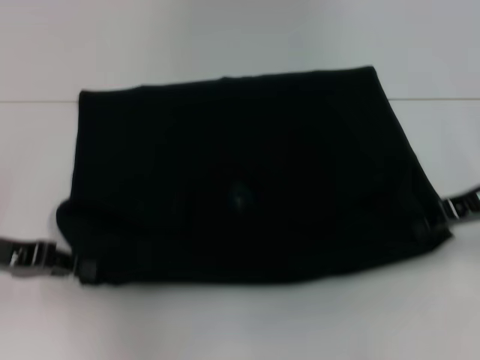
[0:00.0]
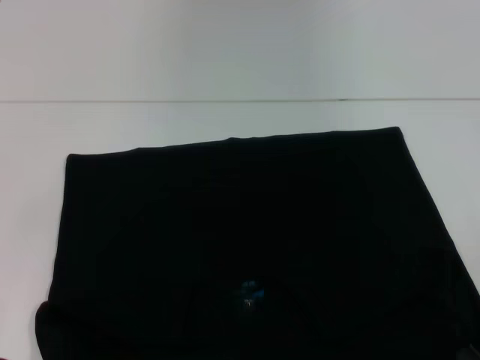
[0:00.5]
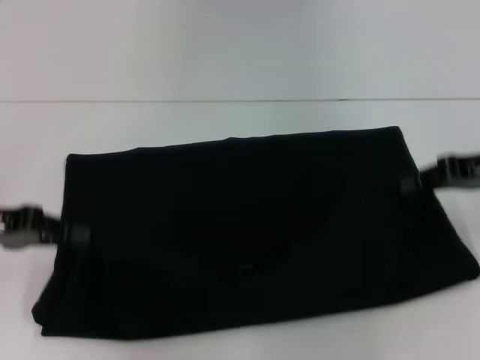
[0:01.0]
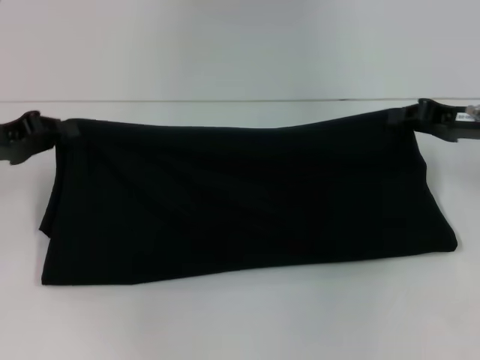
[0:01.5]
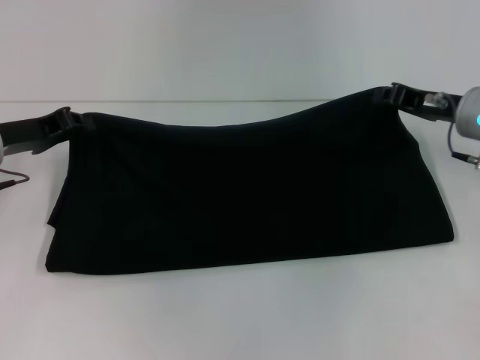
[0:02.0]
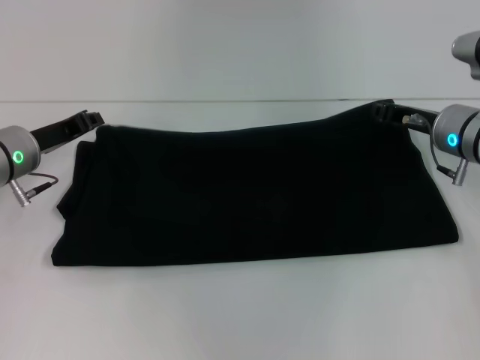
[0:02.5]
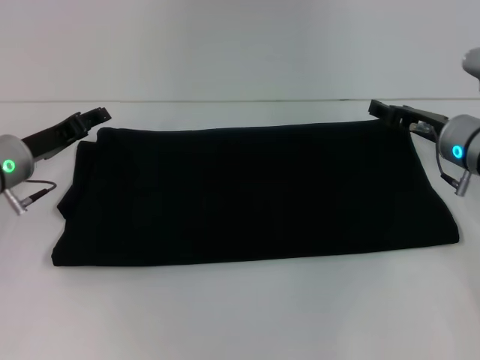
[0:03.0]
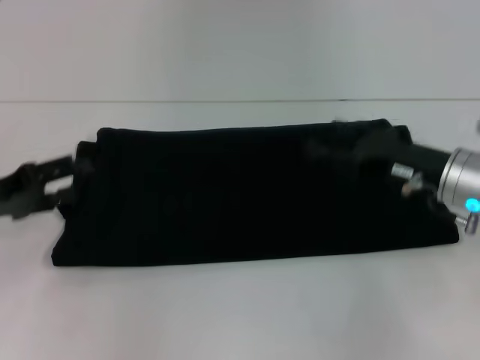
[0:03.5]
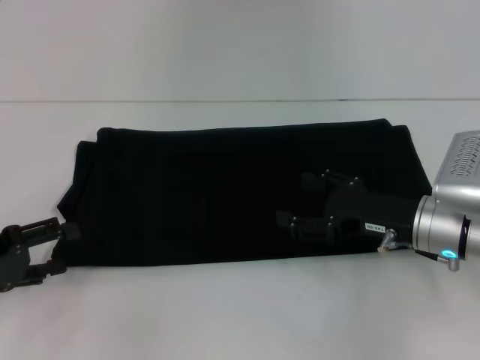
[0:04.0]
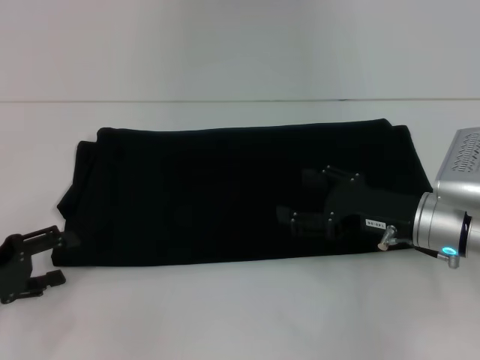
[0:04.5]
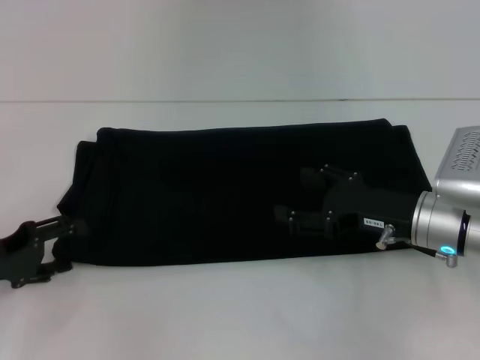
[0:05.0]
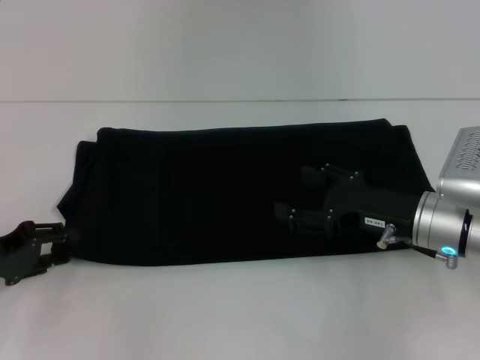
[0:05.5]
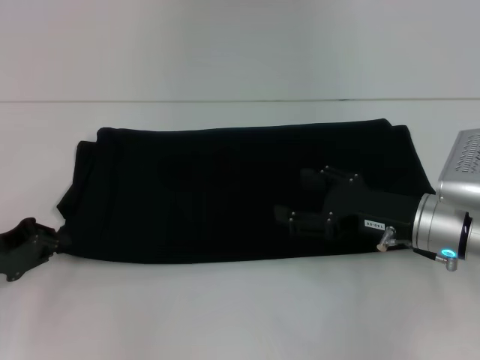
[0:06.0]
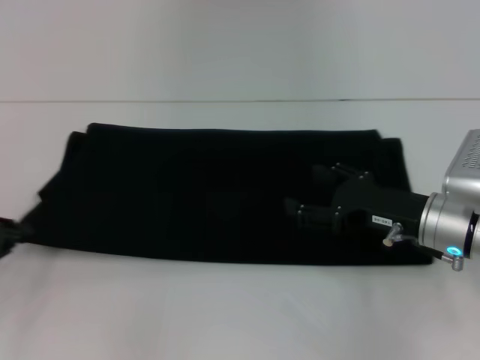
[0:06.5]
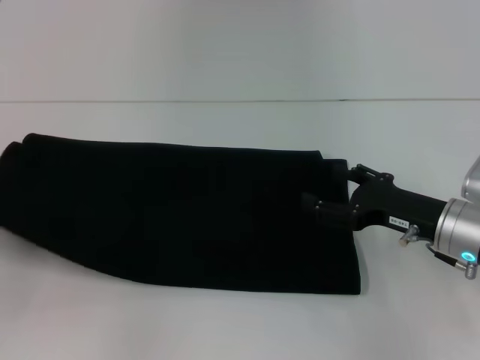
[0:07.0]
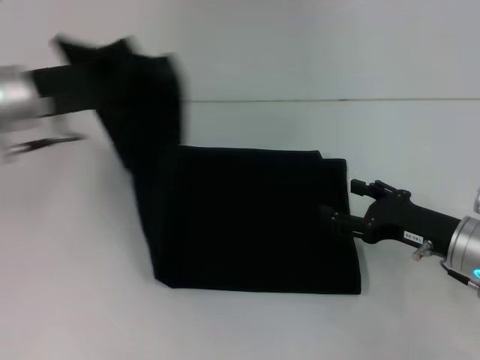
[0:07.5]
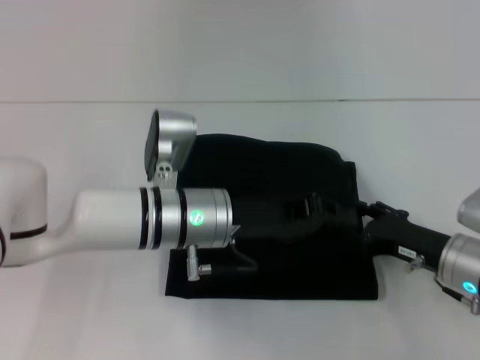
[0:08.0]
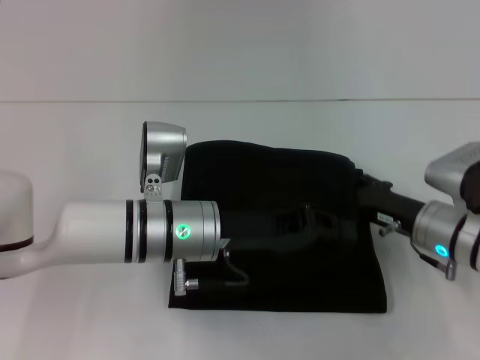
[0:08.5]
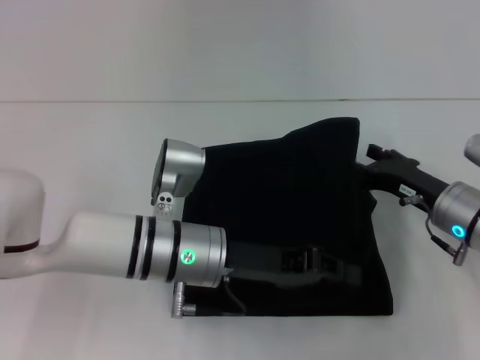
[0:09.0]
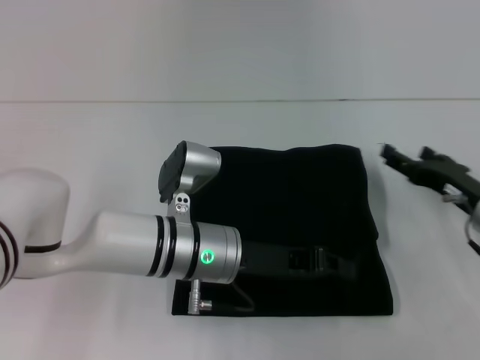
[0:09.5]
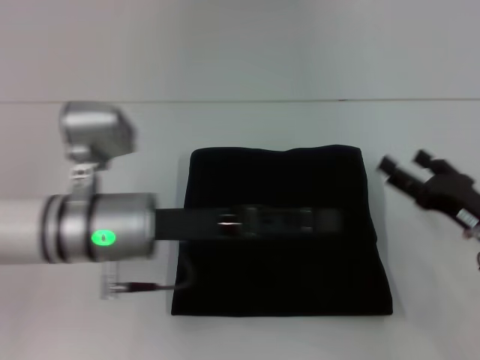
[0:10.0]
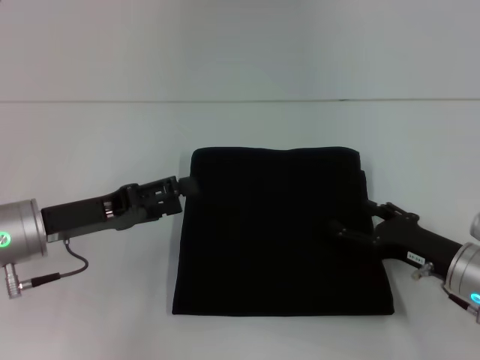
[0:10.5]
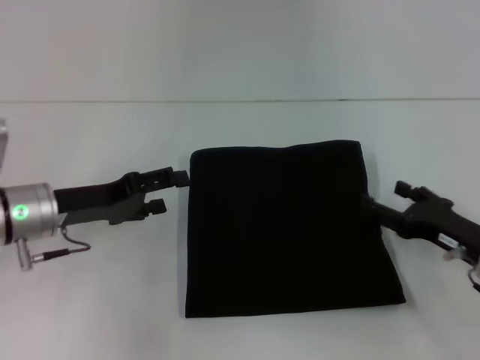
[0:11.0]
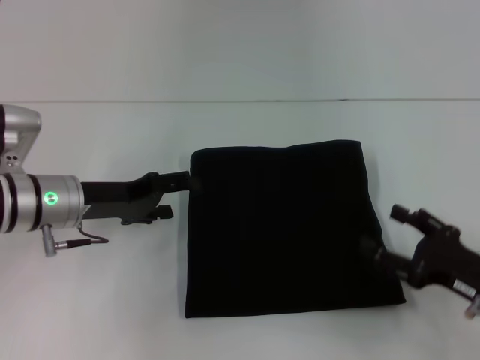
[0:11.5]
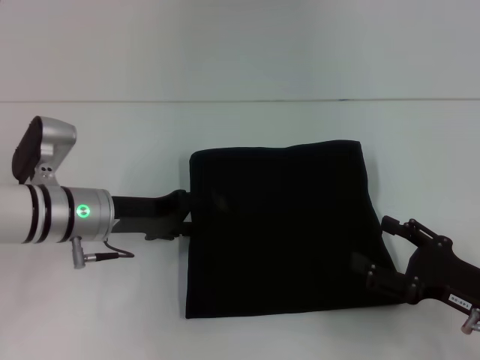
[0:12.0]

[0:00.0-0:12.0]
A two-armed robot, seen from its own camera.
Step, 0:01.0 to 0:03.0: Fold the clothes with your right hand.
Step, 0:01.0 to 0:09.5: Fold the clothes with your left hand.
0:00.0 to 0:02.0: The left gripper moves forward, about 10 cm; the right gripper changes place by roughly 5 cm.
0:02.0 to 0:04.0: The left gripper travels backward by approximately 10 cm, and opens its fingers, while the right gripper is displaced backward and downward by some 10 cm, and opens up.
0:04.0 to 0:06.0: The left gripper closes up.
0:06.0 to 0:08.0: The left gripper is displaced to the right by some 25 cm; the right gripper changes place by some 5 cm.
0:08.0 to 0:10.0: The left gripper travels to the left by roughly 5 cm, and opens.
0:10.0 to 0:12.0: The left gripper shifts approximately 5 cm to the left, and opens up; the right gripper heads backward, covering some 5 cm.

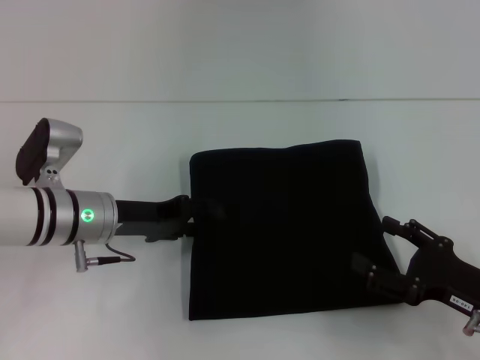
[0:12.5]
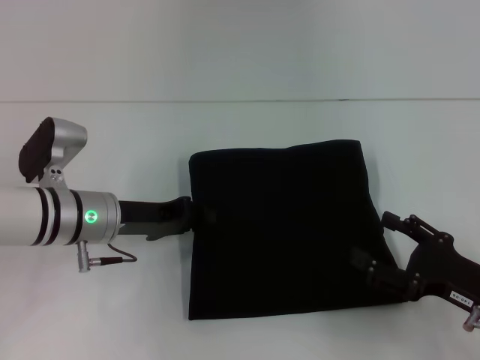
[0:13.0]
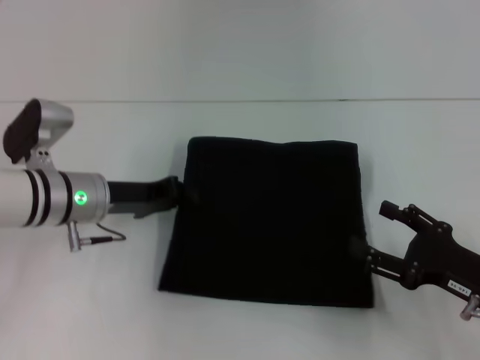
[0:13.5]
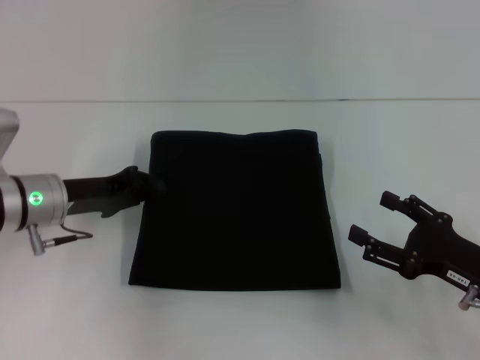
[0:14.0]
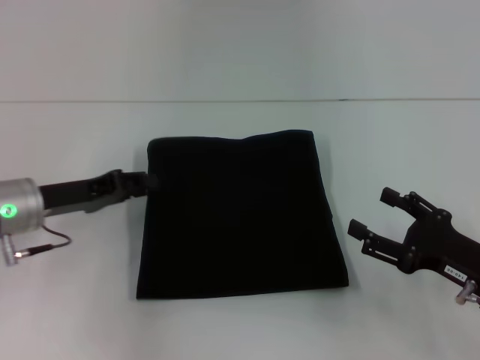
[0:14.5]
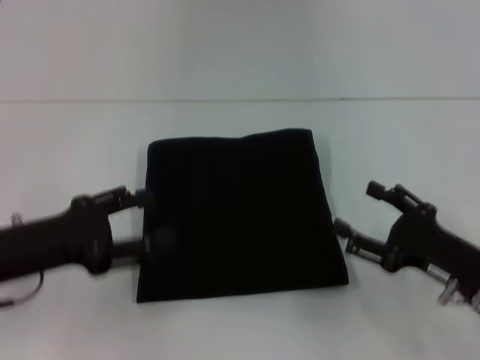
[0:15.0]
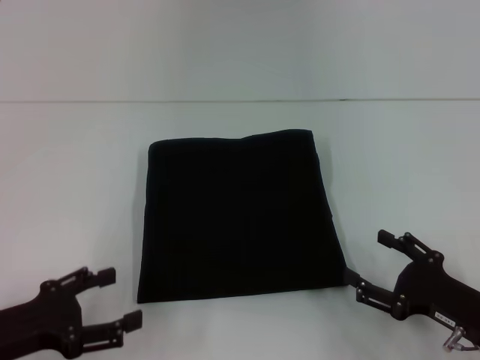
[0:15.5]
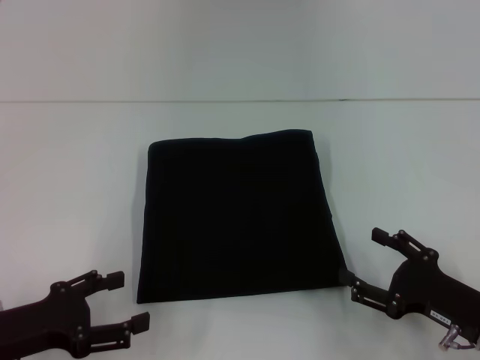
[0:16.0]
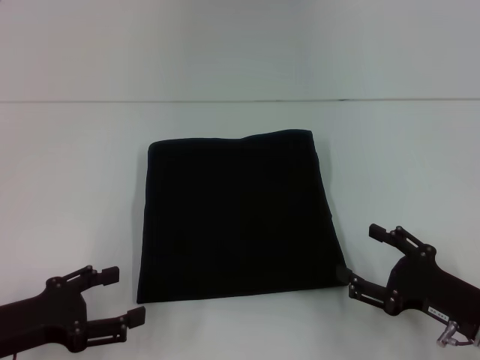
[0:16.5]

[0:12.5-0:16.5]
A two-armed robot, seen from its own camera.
0:12.5 to 0:14.5: The left gripper heads to the left, covering approximately 5 cm, and closes its fingers.
0:14.5 to 0:16.5: The left gripper moves backward, approximately 15 cm, and opens.

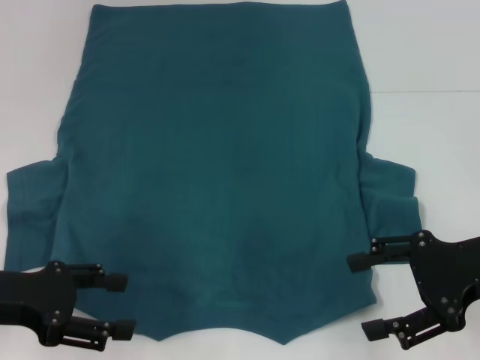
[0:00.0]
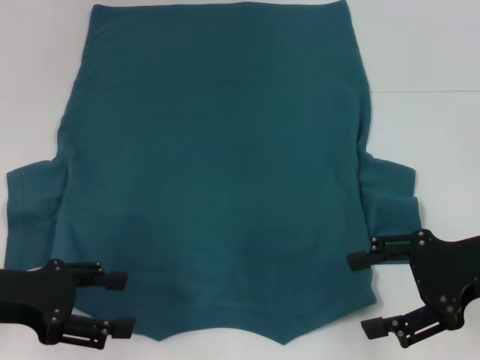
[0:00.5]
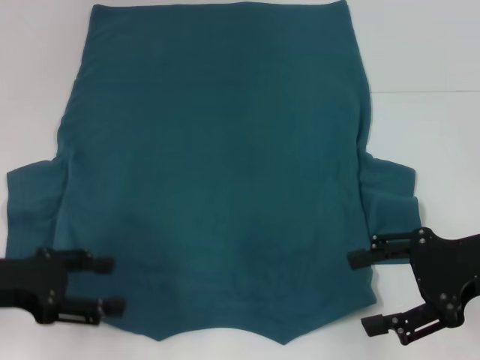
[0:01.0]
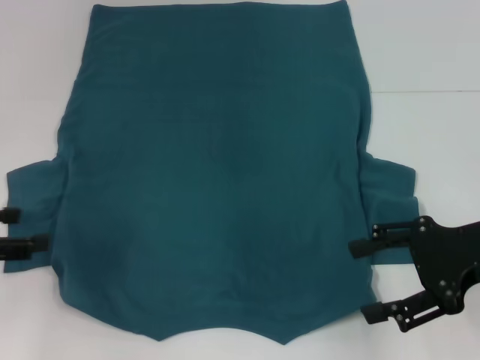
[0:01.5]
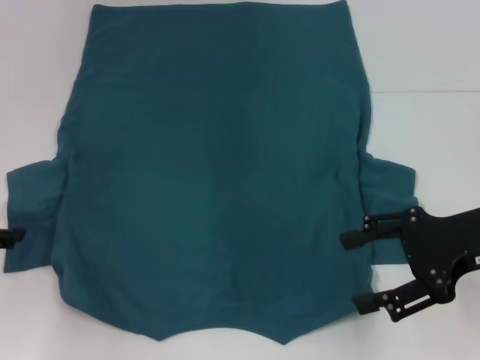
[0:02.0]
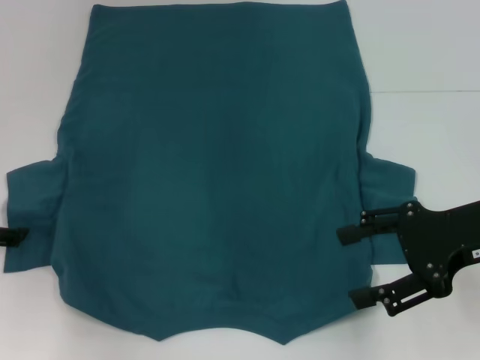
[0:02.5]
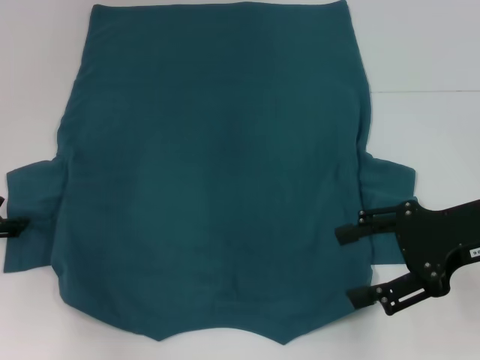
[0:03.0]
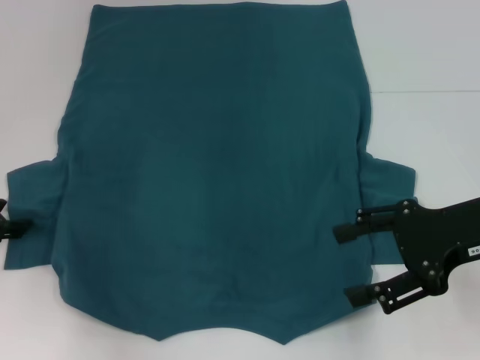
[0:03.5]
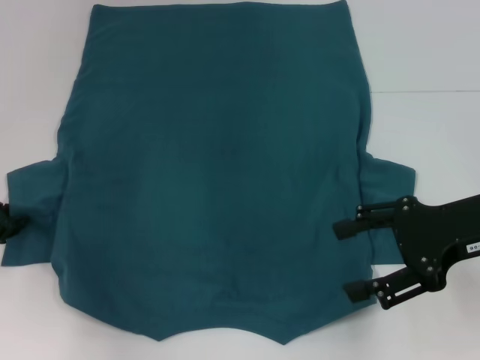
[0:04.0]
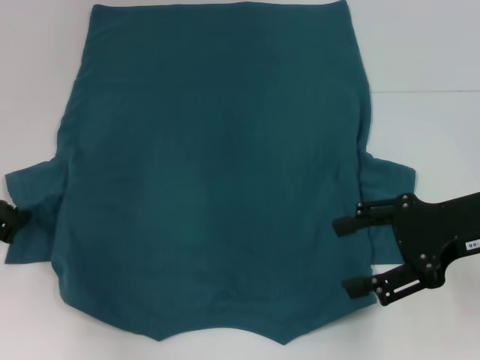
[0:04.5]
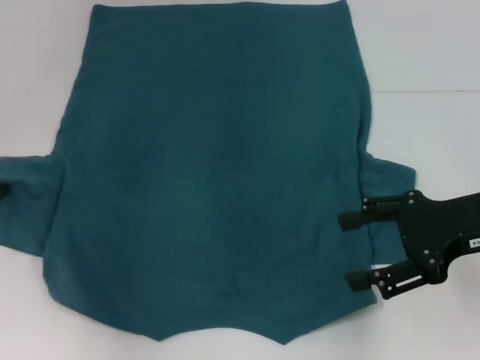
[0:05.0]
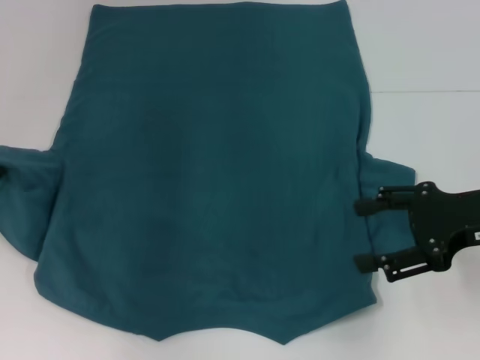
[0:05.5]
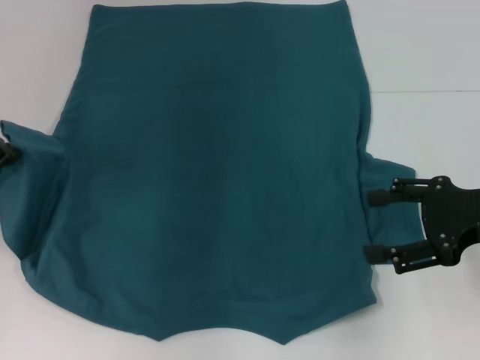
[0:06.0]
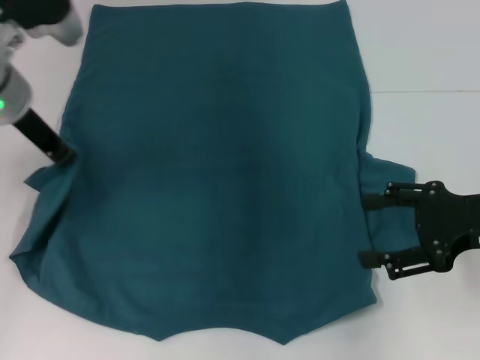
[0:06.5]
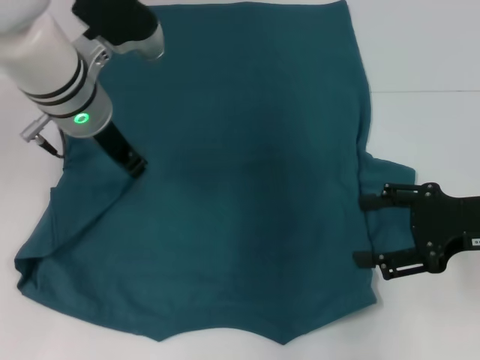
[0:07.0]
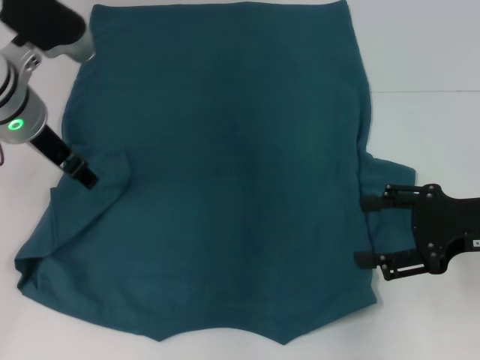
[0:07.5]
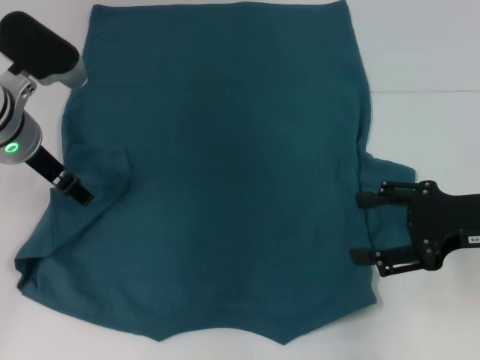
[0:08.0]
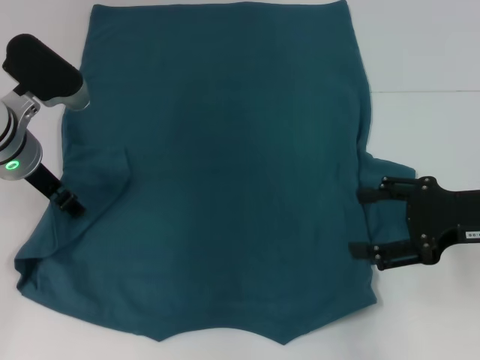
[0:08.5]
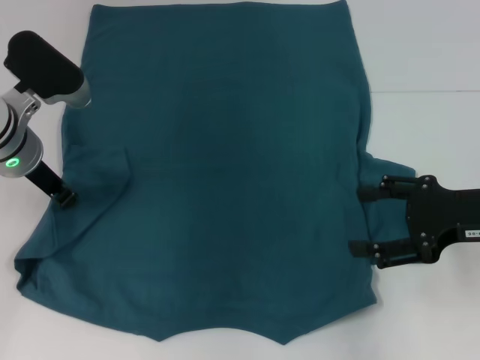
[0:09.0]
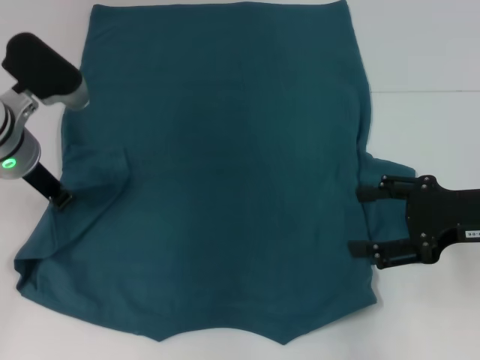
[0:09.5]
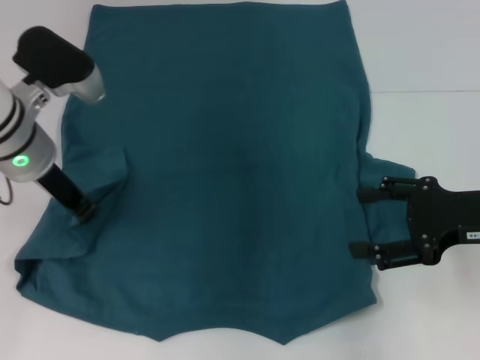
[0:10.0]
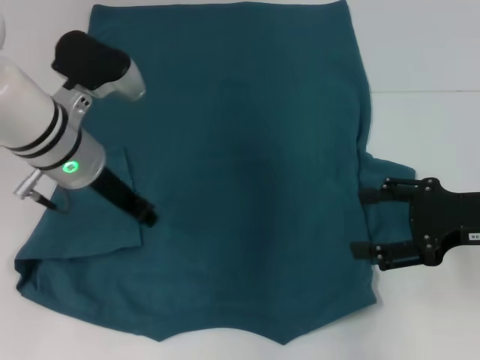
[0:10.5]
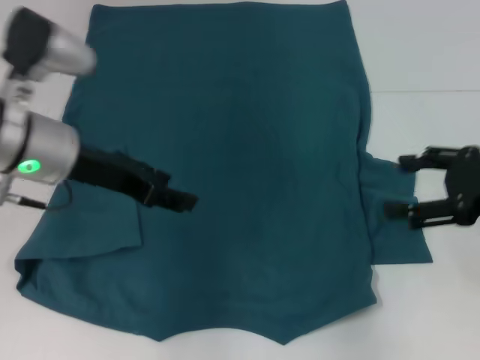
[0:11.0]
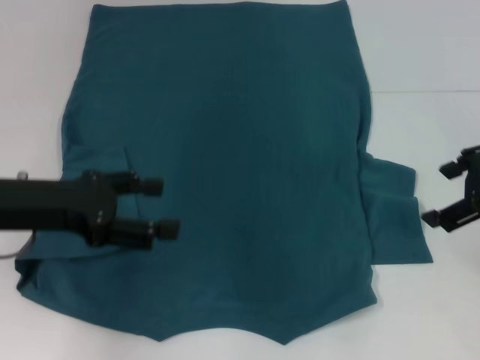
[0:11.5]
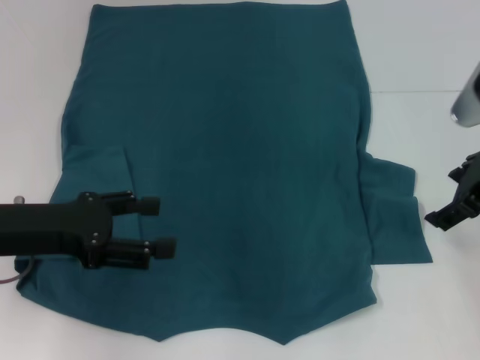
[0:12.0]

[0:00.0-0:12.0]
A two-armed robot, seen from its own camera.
Step, 0:00.0 to 0:10.5: Fold the bottom left sleeve with your left hand.
0:00.0 to 0:02.0: The left gripper shifts approximately 5 cm to the left.
0:02.0 to 0:04.0: The left gripper moves some 5 cm, and closes its fingers.
0:04.0 to 0:06.0: The left gripper goes approximately 10 cm upward, and closes its fingers.
0:06.0 to 0:08.0: The left gripper heads to the right and downward, covering some 10 cm, and opens.
0:08.0 to 0:10.0: The left gripper closes its fingers.
0:10.0 to 0:12.0: The right gripper heads forward, covering roughly 5 cm. Meanwhile the left gripper travels backward and to the left by approximately 10 cm, and opens its fingers.
